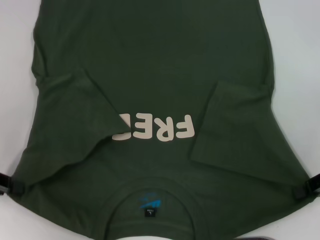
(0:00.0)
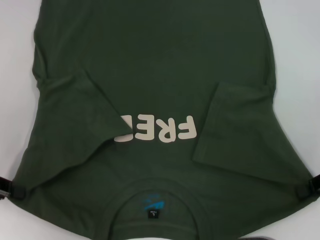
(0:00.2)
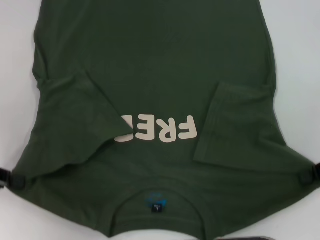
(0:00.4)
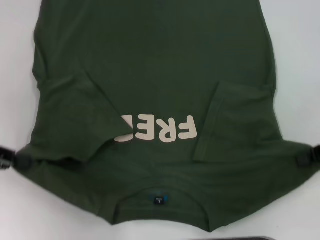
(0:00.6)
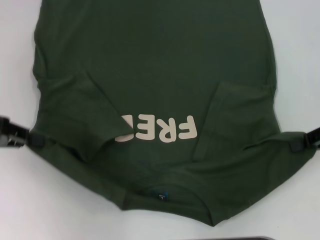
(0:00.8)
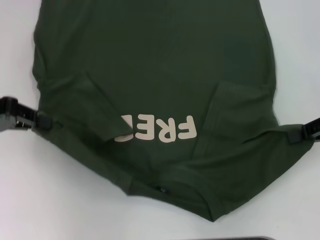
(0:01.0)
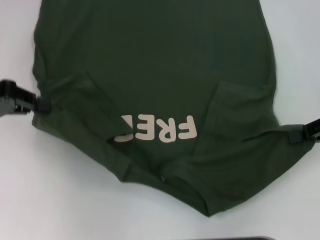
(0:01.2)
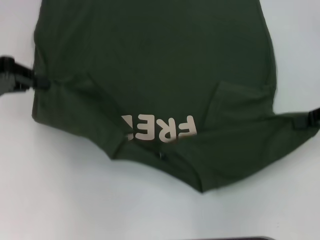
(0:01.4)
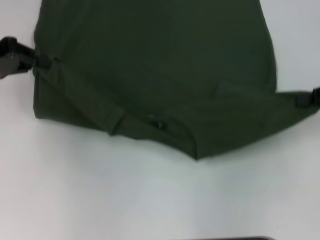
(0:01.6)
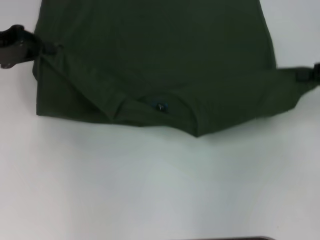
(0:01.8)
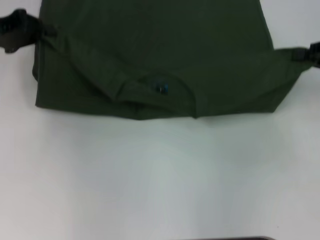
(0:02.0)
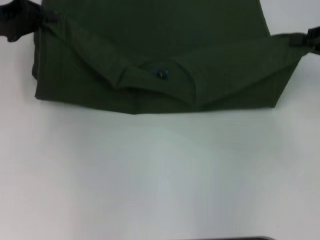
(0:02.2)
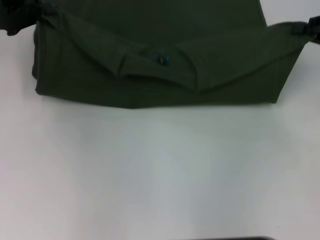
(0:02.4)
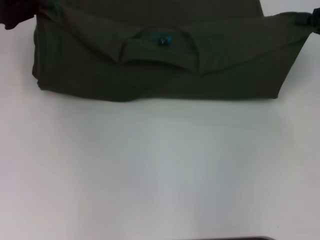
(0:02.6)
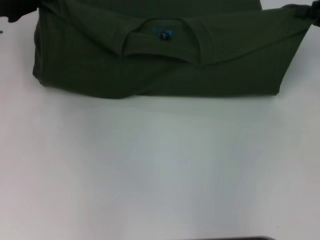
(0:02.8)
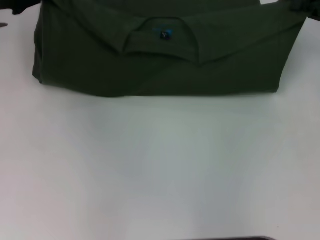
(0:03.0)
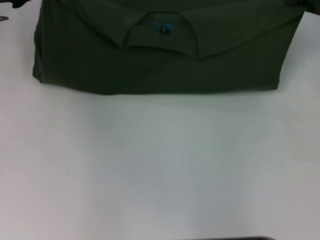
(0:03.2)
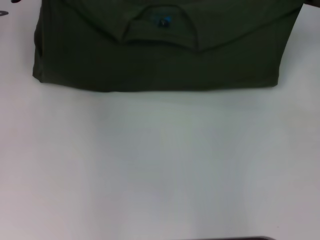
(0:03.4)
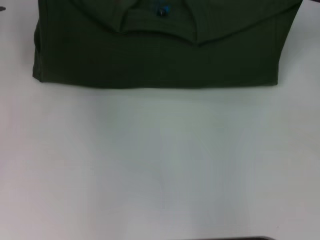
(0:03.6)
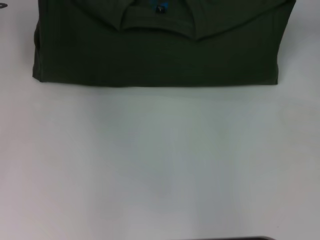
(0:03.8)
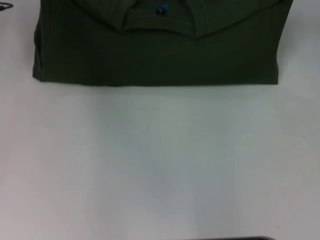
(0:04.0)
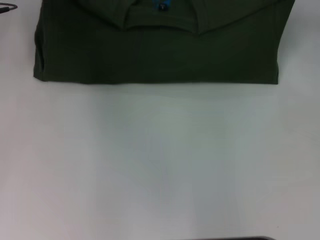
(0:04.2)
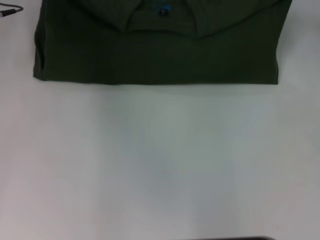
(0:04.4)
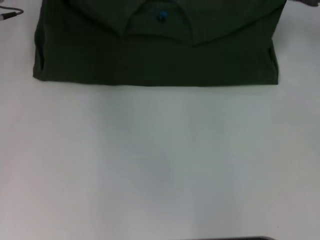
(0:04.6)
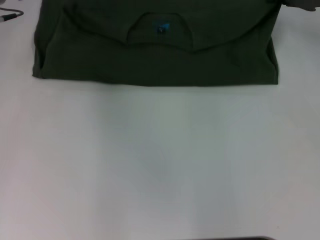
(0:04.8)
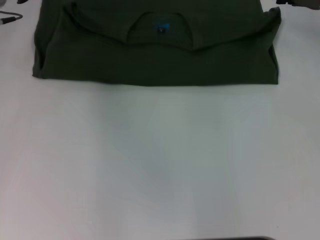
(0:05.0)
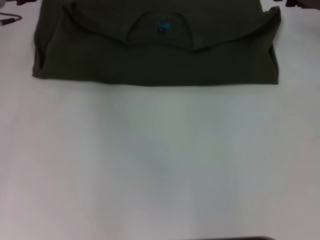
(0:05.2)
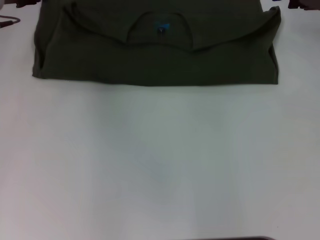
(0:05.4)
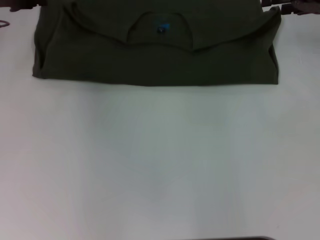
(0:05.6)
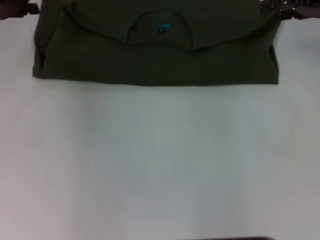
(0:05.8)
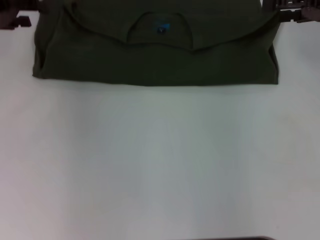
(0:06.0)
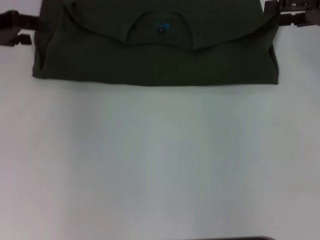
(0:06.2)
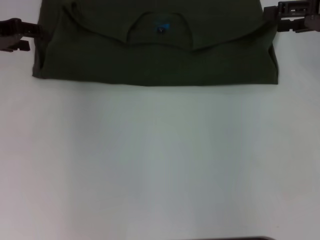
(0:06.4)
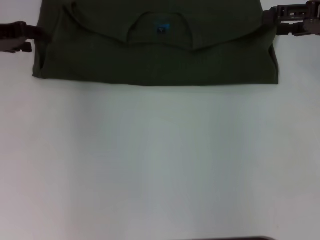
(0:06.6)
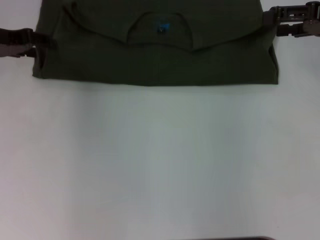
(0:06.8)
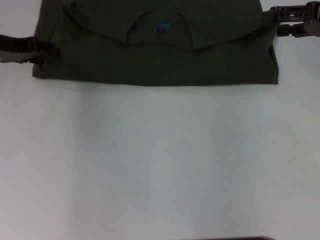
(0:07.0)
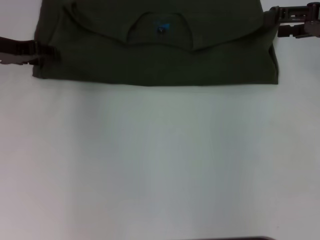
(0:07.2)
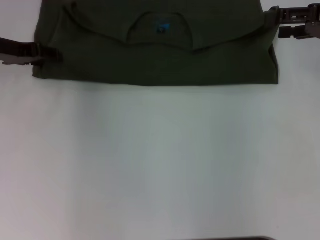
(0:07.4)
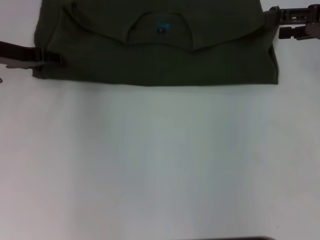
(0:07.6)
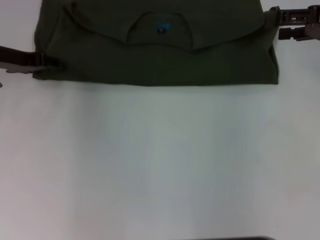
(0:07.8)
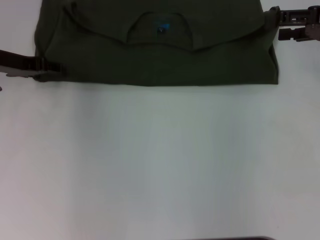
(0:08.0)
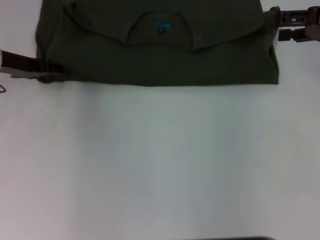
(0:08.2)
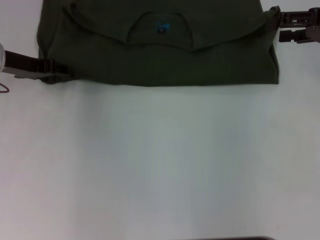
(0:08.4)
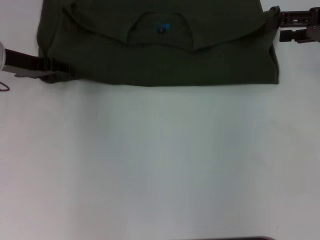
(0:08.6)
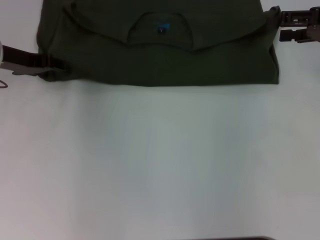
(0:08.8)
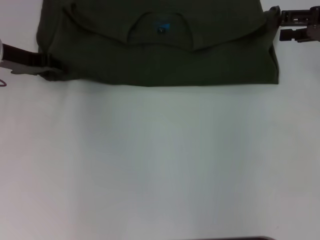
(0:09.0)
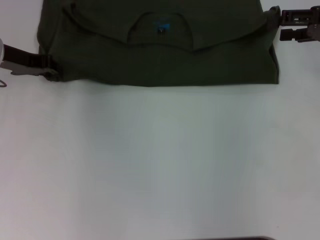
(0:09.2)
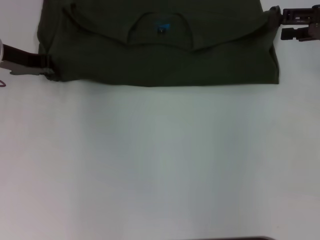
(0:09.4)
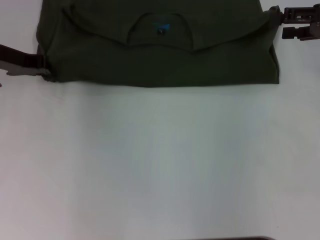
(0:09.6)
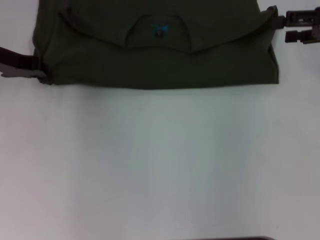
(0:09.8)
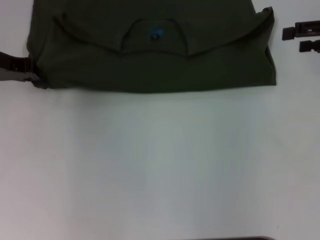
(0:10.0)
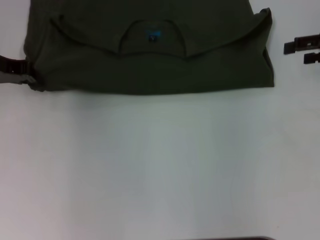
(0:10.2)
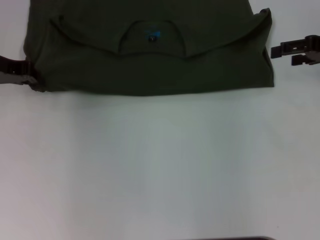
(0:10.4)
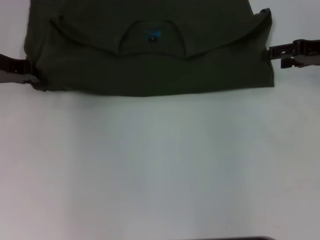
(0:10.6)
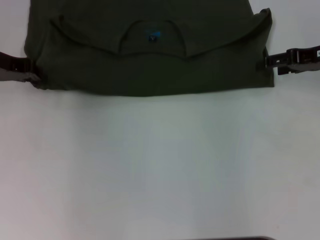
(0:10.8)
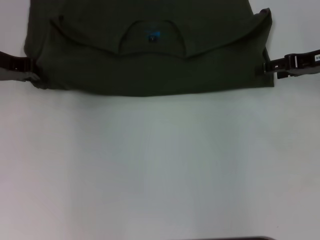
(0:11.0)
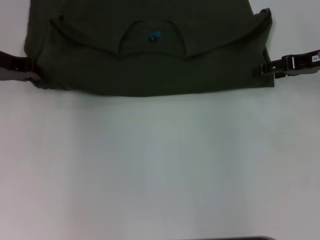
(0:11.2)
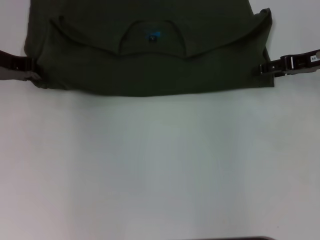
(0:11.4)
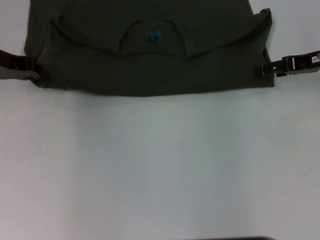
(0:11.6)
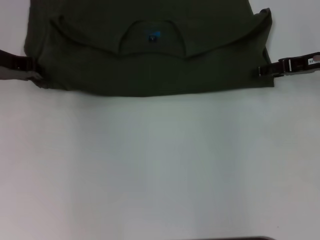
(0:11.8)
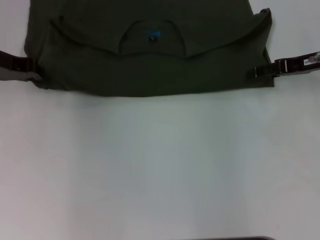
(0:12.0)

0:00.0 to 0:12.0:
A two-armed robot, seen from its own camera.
Step, 0:00.0 to 0:05.4: Fold the clothes with your left hand.
Step, 0:00.0 to 0:05.4: Fold the clothes with your right hand.
0:00.0 to 0:01.6: The right gripper heads forward and upward, covering about 10 cm. Meanwhile the left gripper moves forward and upward, about 15 cm.
0:01.6 to 0:03.0: The two grippers go some 5 cm forward.
0:03.0 to 0:04.4: The right gripper moves forward, some 5 cm.
0:04.4 to 0:06.0: The right gripper opens up; the left gripper is displaced to the left by some 5 cm, and opens up.
0:06.0 to 0:07.6: The left gripper heads downward, covering approximately 5 cm.
0:07.6 to 0:09.0: Both grippers stay about where they are.
0:09.0 to 0:10.4: The left gripper closes its fingers.
0:10.4 to 0:12.0: The right gripper changes place by approximately 5 cm.

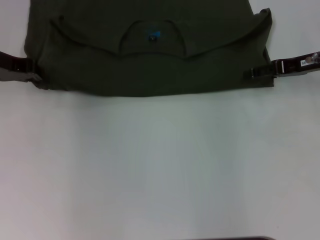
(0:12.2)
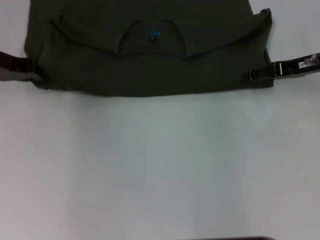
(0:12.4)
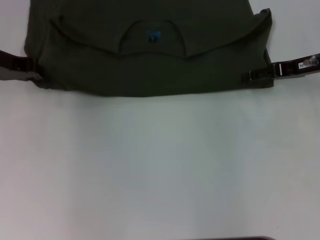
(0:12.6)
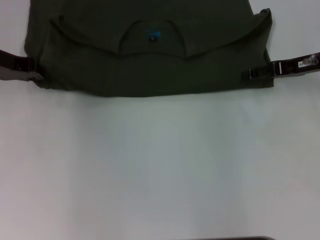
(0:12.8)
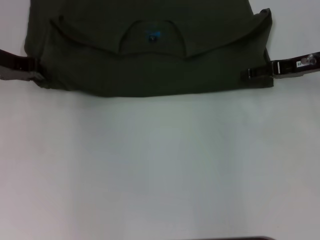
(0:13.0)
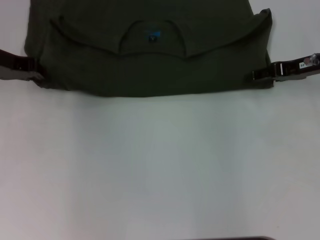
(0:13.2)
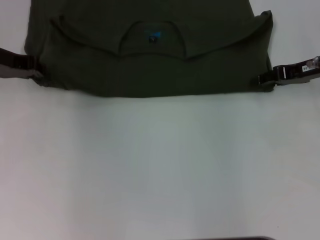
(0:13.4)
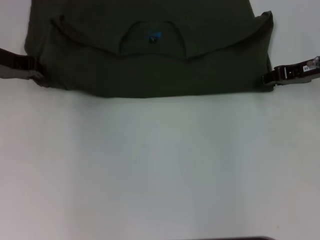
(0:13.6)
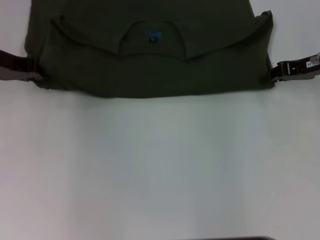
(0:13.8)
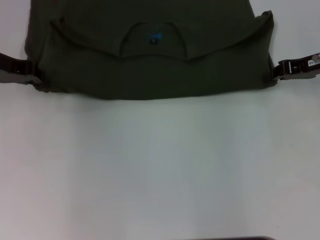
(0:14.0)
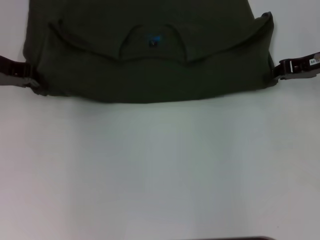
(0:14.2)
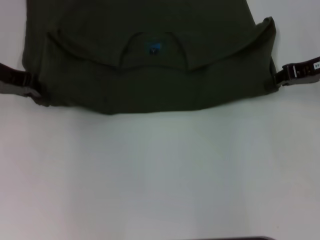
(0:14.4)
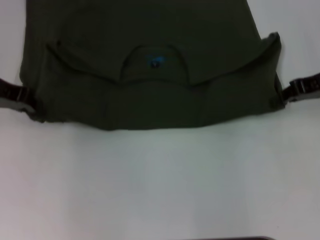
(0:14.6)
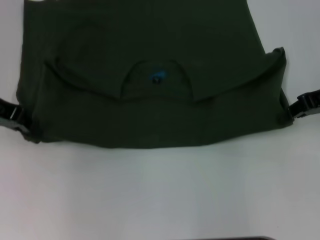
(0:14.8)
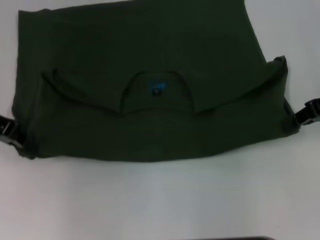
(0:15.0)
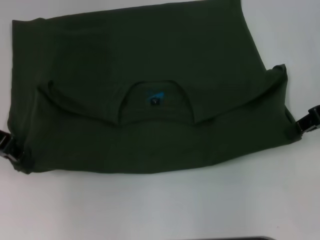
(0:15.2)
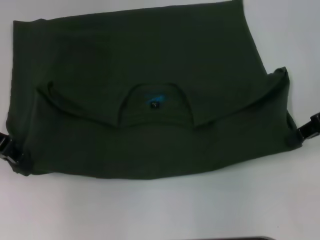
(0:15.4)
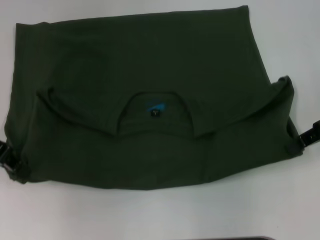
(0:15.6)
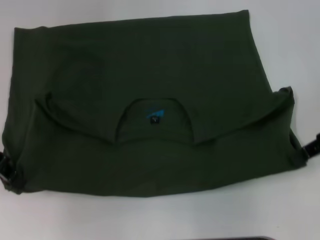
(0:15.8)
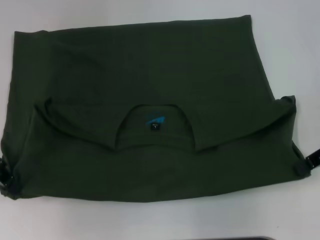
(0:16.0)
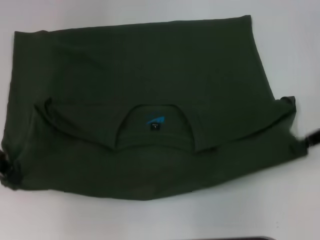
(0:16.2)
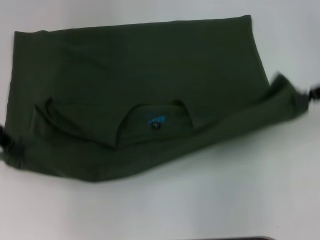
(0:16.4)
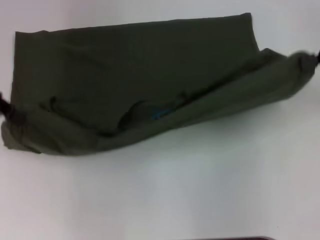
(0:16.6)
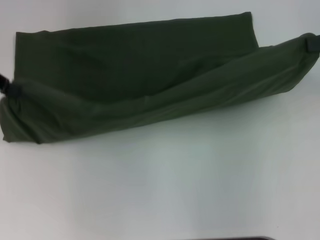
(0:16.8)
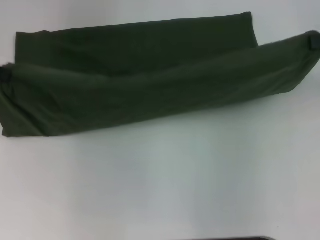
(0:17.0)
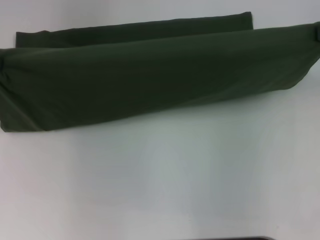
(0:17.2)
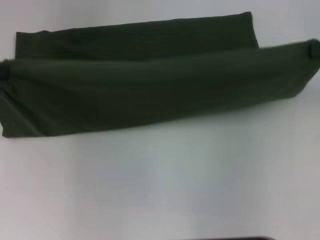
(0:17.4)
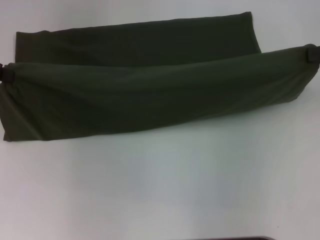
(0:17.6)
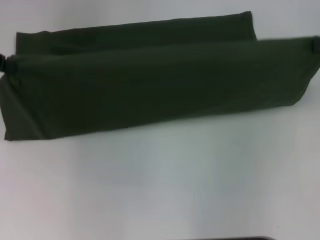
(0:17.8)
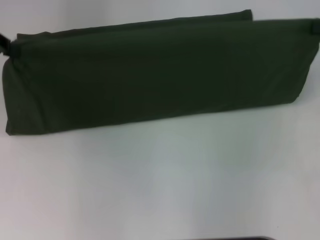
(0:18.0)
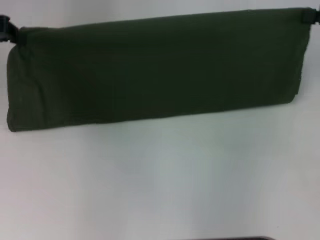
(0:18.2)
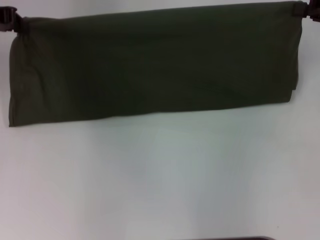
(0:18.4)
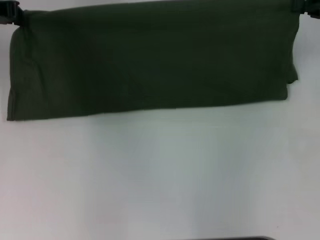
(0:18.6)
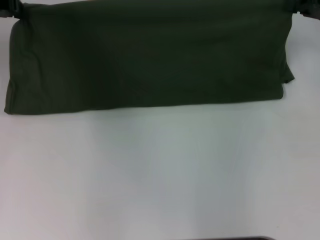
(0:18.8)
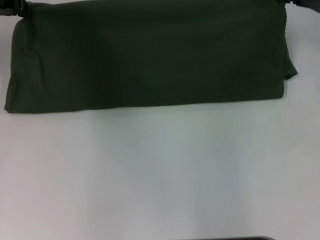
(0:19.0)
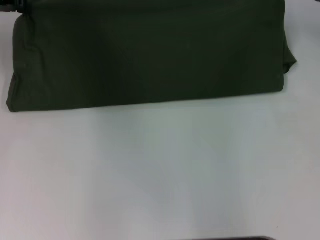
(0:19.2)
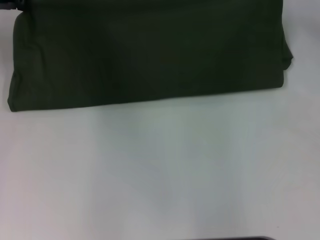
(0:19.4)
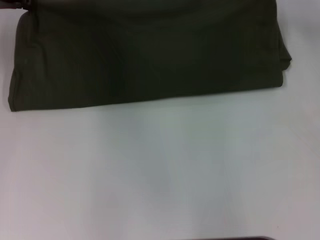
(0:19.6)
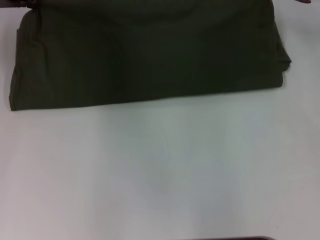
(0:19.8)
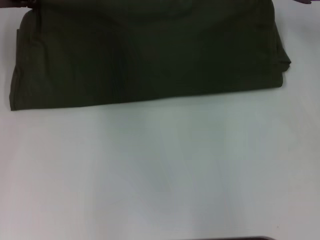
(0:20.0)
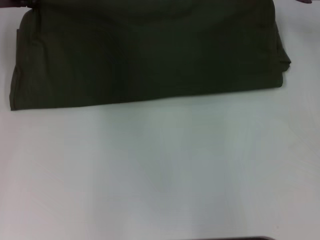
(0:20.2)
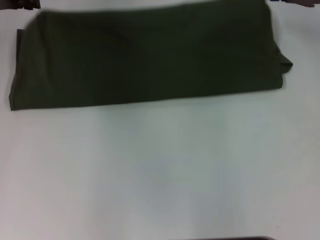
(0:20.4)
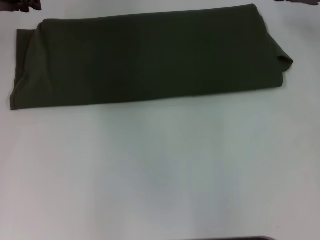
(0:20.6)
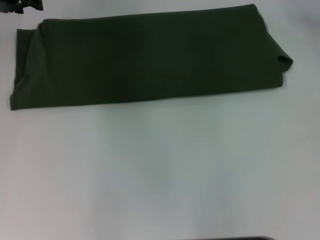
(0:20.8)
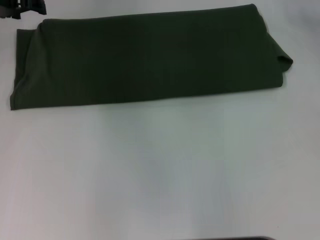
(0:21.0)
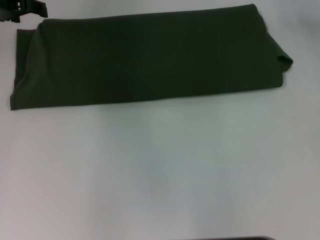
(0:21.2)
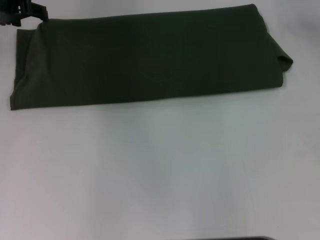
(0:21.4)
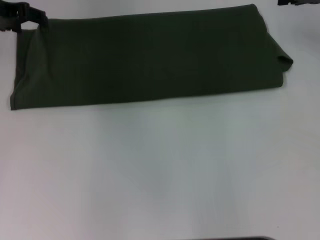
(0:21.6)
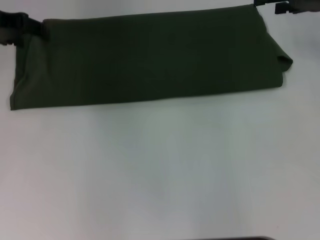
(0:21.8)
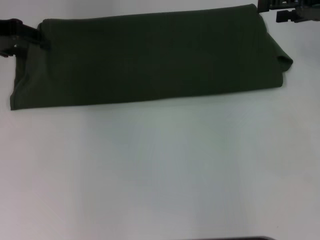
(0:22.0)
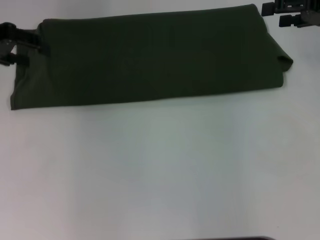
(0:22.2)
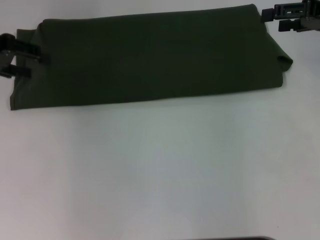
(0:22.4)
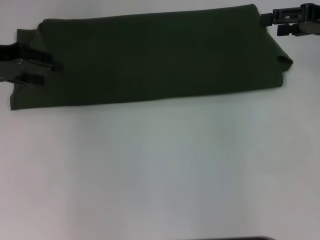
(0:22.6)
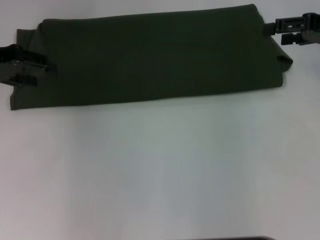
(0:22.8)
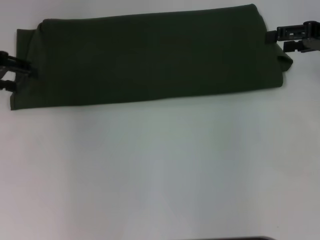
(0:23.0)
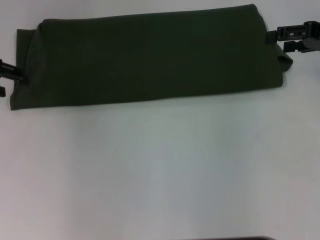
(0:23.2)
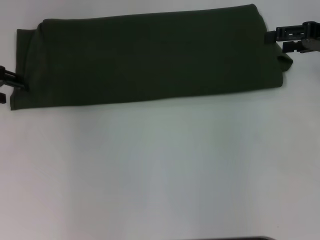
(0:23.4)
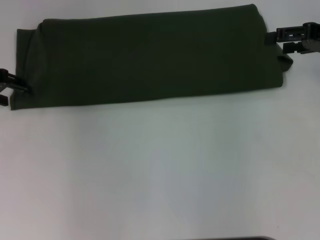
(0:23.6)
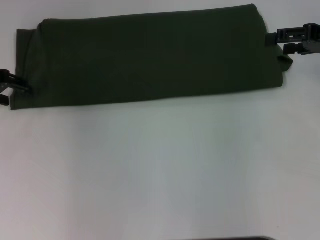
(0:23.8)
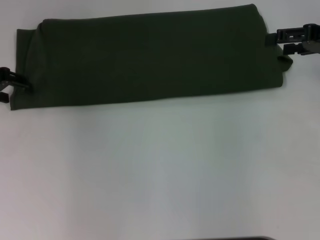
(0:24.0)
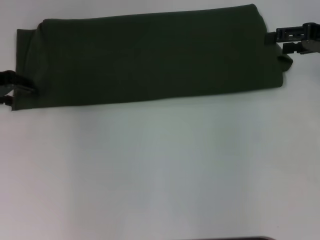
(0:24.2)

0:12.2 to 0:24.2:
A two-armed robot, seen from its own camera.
Step, 0:12.2 to 0:15.8: Pull the clothes with your left hand.
Step, 0:12.2 to 0:15.8: Pull the clothes with your right hand.
0:12.2 to 0:13.8: The right gripper closes up.
0:13.8 to 0:15.2: The two grippers go some 5 cm backward.
0:15.2 to 0:16.6: The two grippers go roughly 5 cm upward.
0:18.2 to 0:19.8: The right gripper moves forward and to the left, roughly 10 cm. Meanwhile the left gripper shifts about 5 cm to the right.
0:19.8 to 0:21.2: The left gripper opens up. Meanwhile the right gripper opens its fingers.
0:21.2 to 0:22.6: Both grippers travel together backward, some 5 cm.
0:22.6 to 0:24.2: The left gripper heads downward, covering roughly 5 cm.
